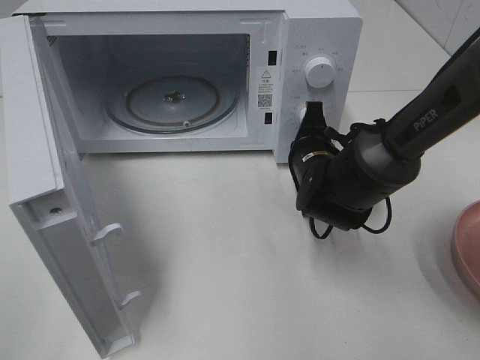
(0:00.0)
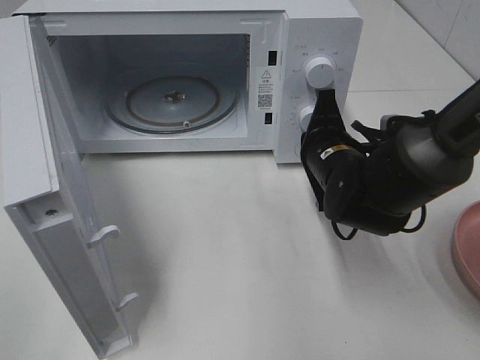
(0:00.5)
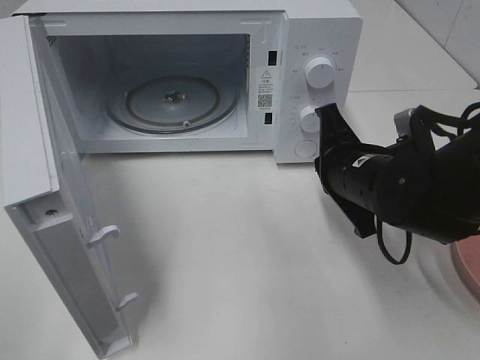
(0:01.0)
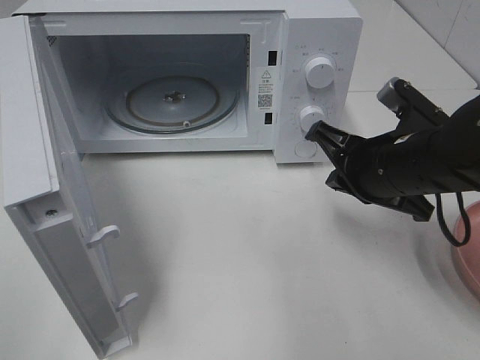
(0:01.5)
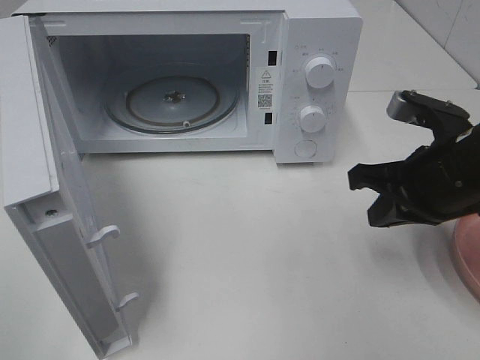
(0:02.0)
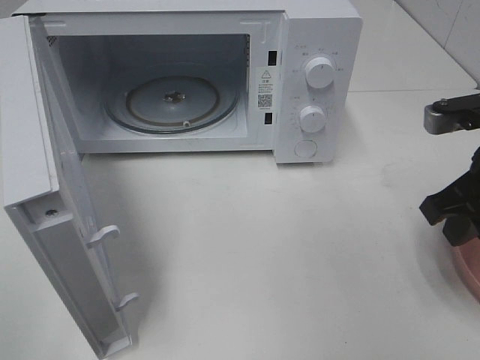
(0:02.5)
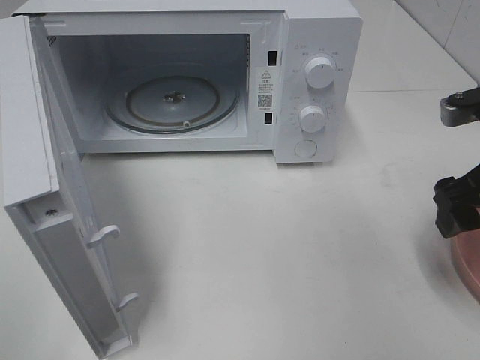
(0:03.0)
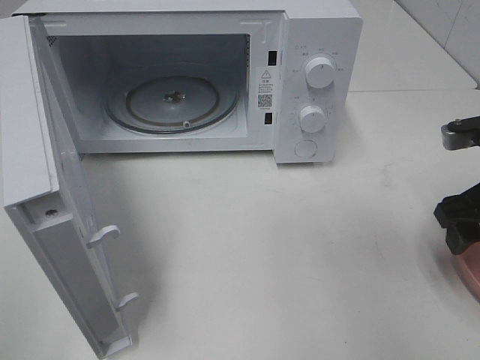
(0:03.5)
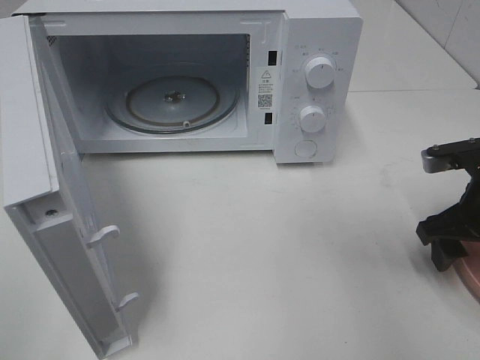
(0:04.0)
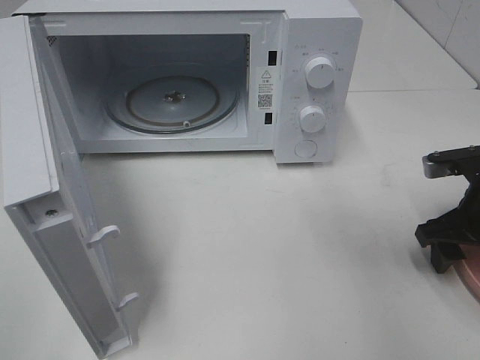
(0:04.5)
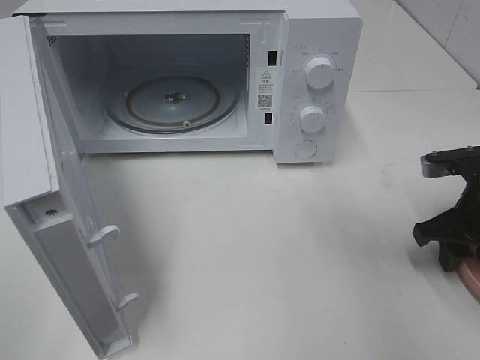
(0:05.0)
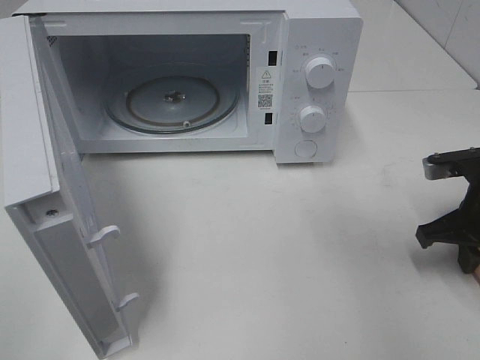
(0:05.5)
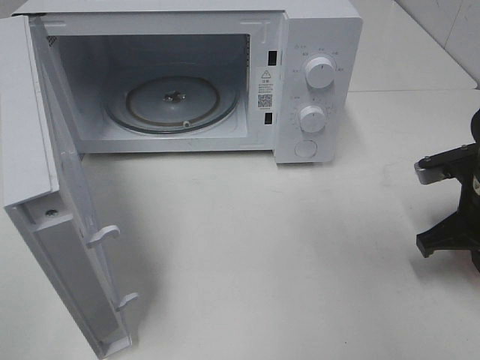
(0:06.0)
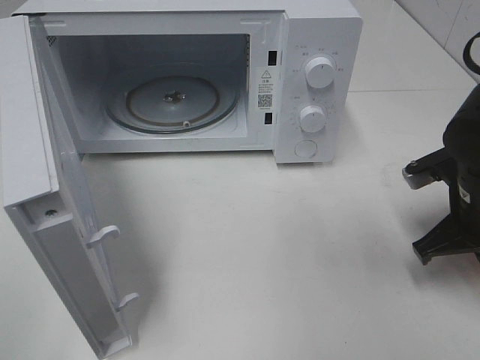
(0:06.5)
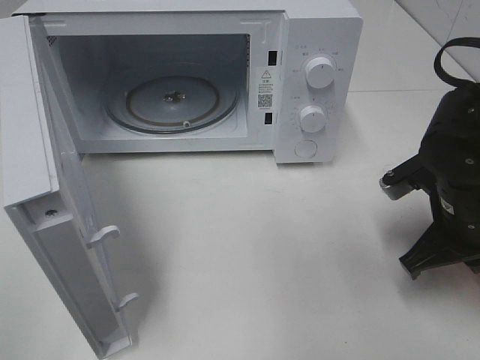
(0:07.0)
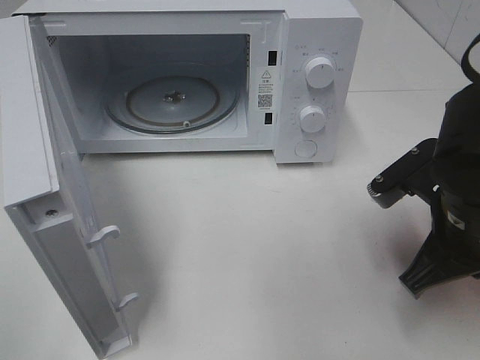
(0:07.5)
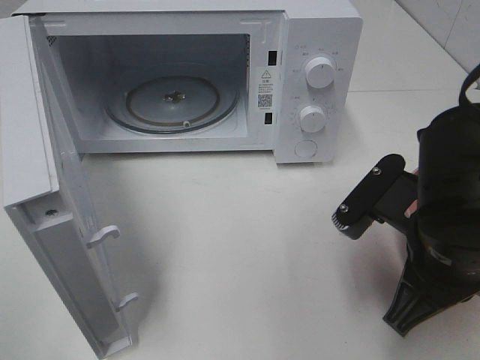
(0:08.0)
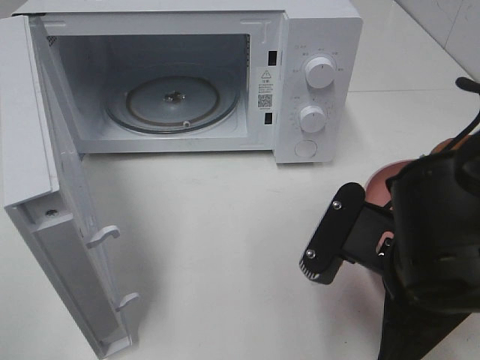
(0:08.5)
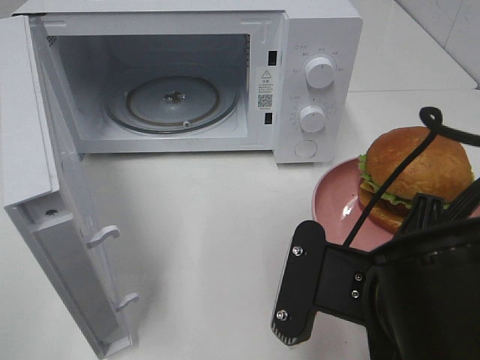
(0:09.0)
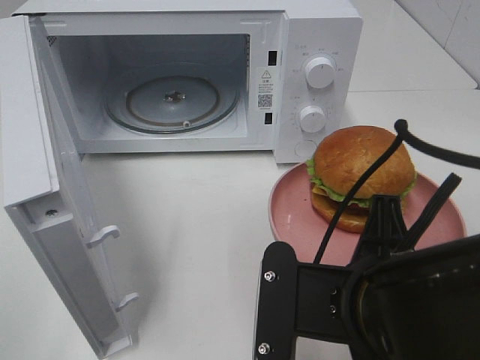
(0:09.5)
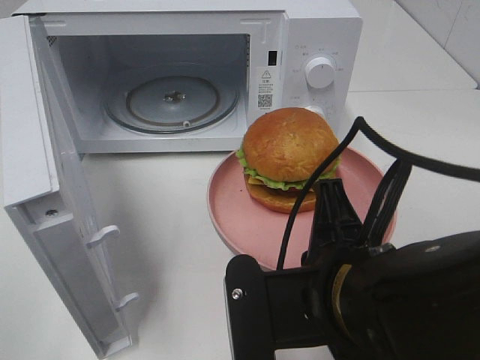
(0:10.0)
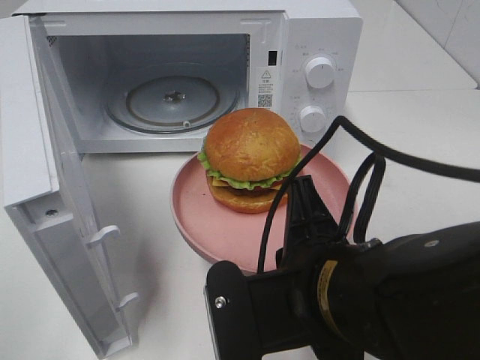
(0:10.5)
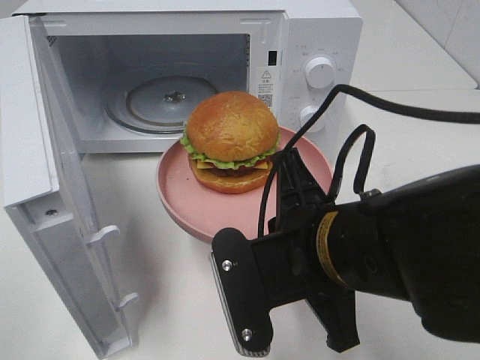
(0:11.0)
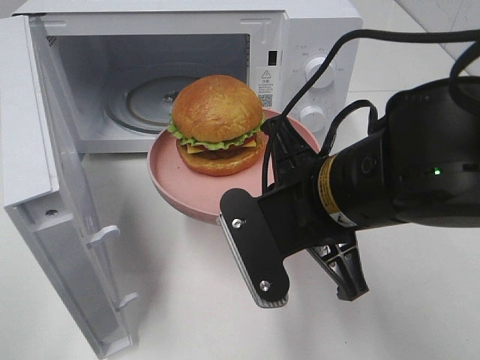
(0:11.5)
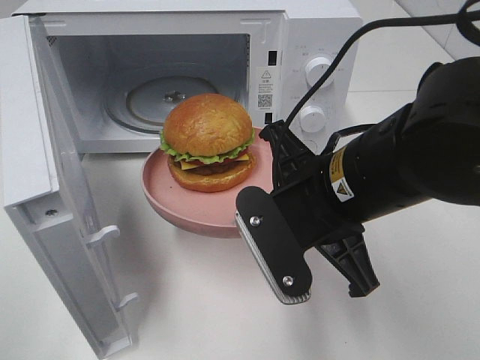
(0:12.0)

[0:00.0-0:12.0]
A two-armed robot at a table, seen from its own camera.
Task of the whole recording: Heat the burger.
Step, 0:00.5 to 0:05.5: Right hand: grab the plate with the hamburger.
0:00.0 to 0:02.0: The right gripper travels backward, upward and to the right by some 15 cm.
0:02.0 to 0:04.0: The right gripper shifts some 5 cm to the right, and opens.
0:04.0 to 0:06.0: The right gripper closes.
0:06.0 to 0:08.0: The right gripper goes roughly 15 cm to the left and backward.
0:08.0 to 0:10.0: The right gripper goes approximately 10 cm to the left and backward.
0:10.0 to 0:12.0: The right gripper heads forward, covering some 10 cm.

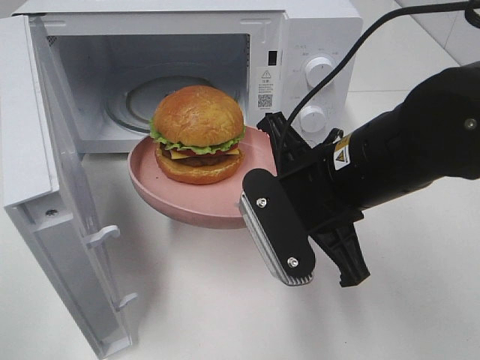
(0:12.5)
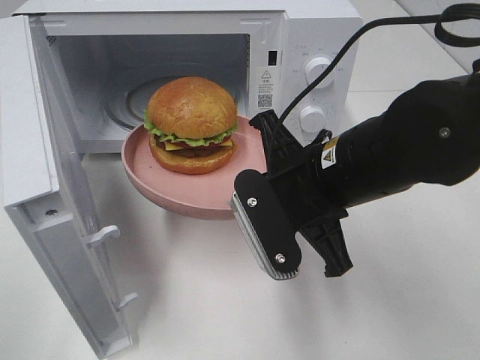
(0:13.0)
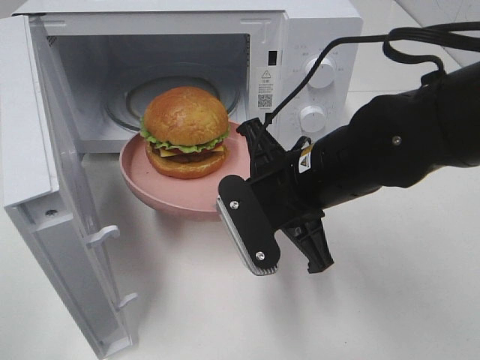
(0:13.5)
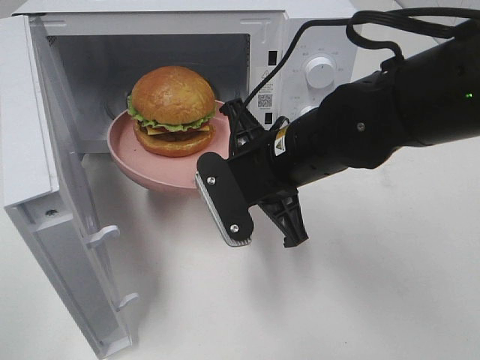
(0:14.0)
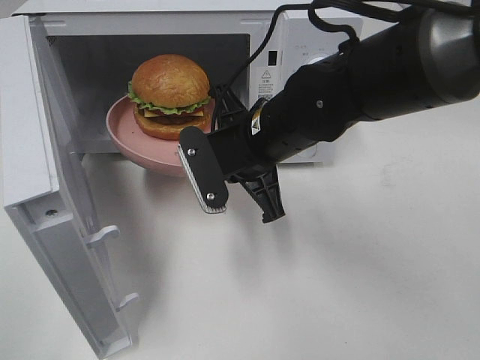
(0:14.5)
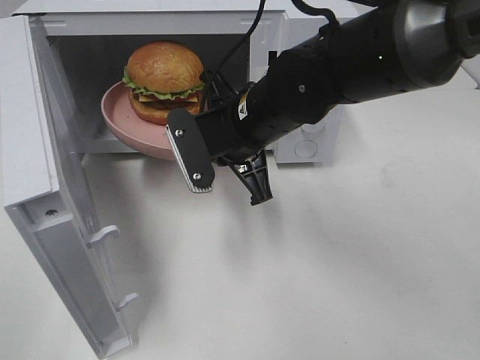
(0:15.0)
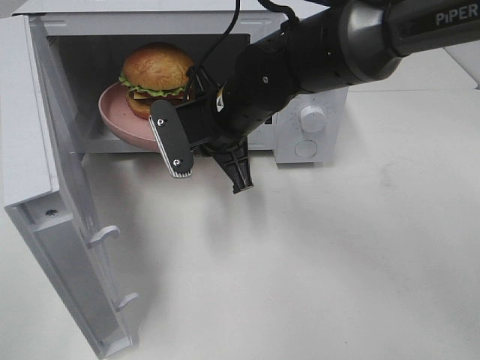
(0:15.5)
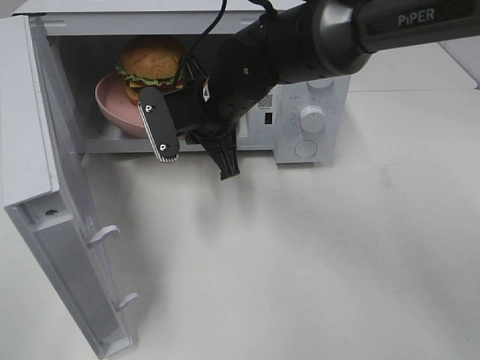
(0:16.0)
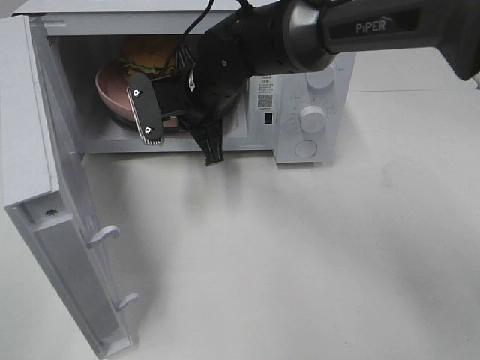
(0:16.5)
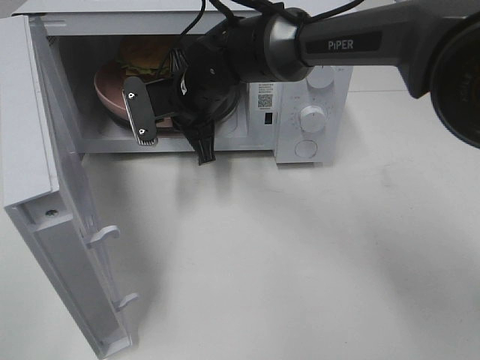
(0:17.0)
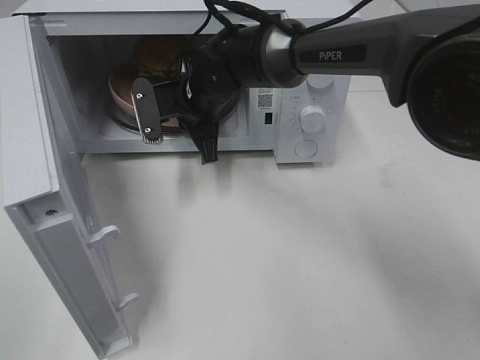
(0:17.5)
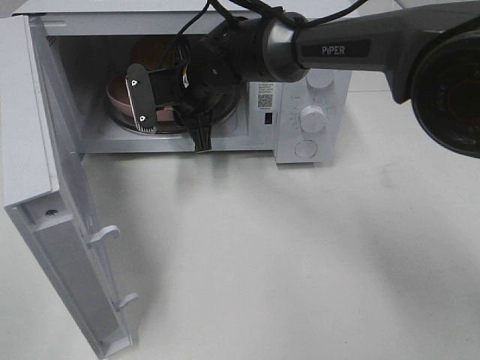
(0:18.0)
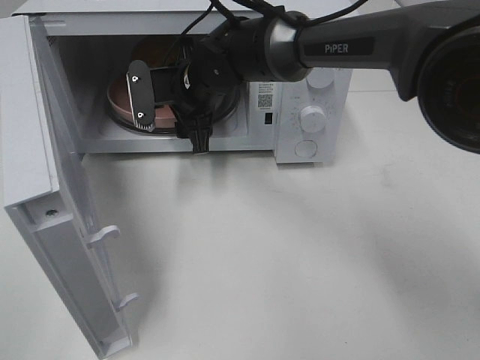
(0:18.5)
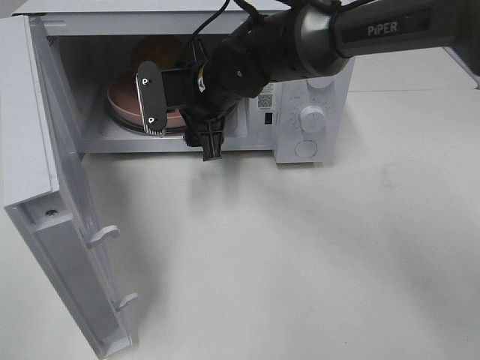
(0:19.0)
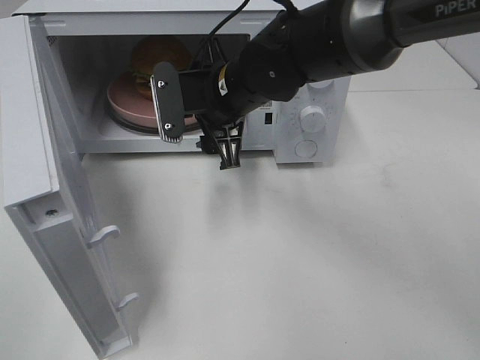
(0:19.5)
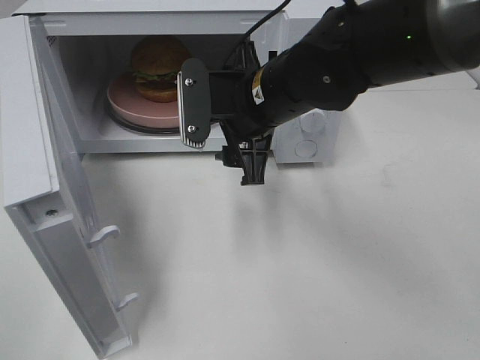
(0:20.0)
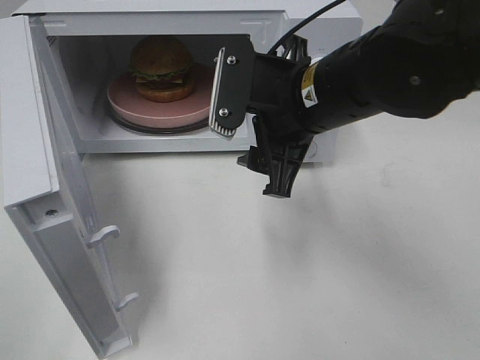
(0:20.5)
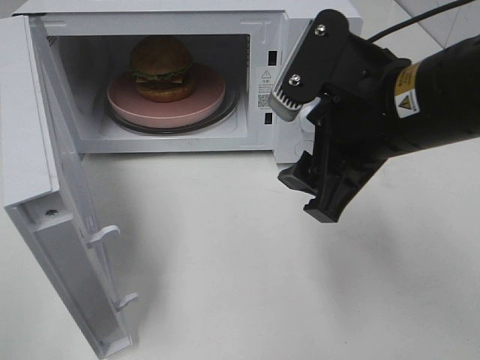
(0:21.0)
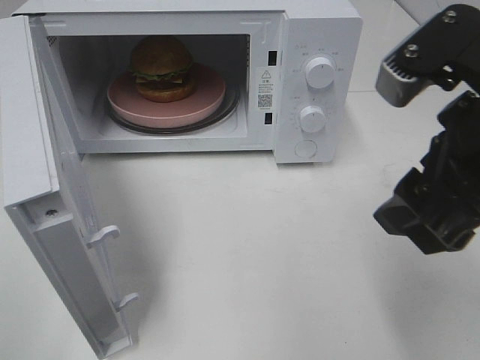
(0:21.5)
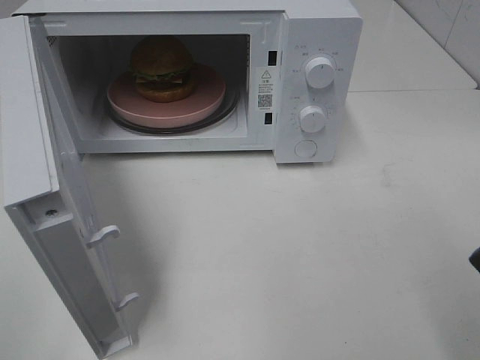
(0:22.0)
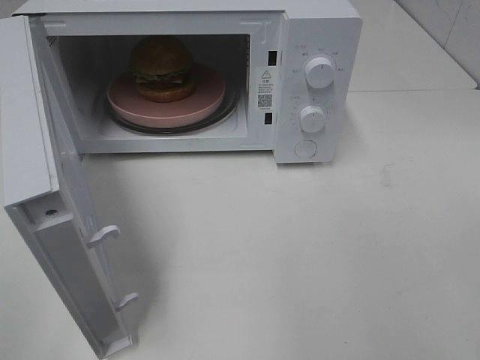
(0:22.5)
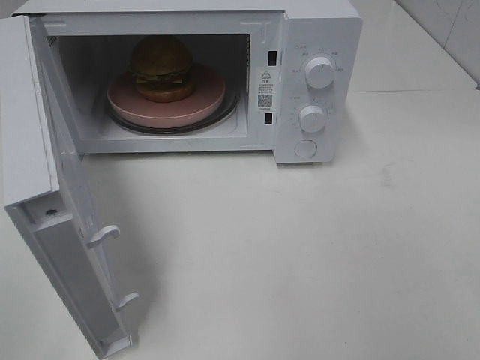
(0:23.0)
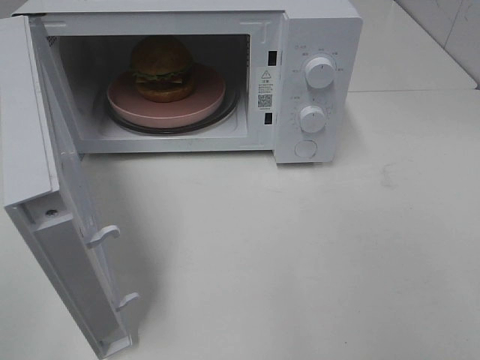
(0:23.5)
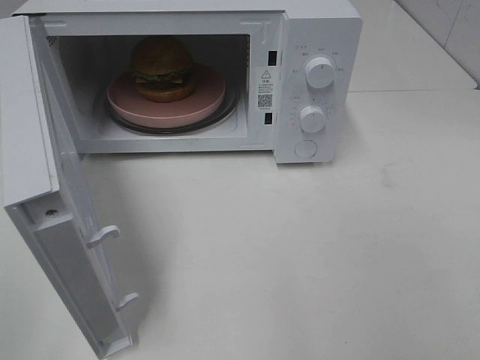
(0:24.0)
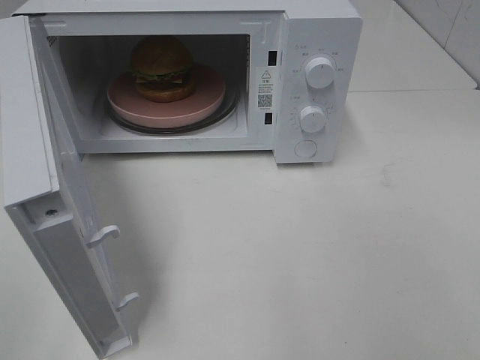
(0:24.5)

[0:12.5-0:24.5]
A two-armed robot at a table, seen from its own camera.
Task of the whole recording: Heat the burger.
Step, 0:12.5 to 0:18.0: Right hand: place the plate in the microwave.
0:12.5 to 0:14.5: The right gripper is displaced forward and to the left by some 10 cm.
0:14.5 to 0:16.5: The right gripper moves forward and to the left, roughly 10 cm.
0:16.5 to 0:18.5: The right gripper opens.
0:18.5 to 0:20.5: The right gripper travels backward, to the right and upward by roughly 20 cm.
0:20.5 to 0:22.5: The right gripper heads backward, to the right and upward, covering approximately 30 cm.

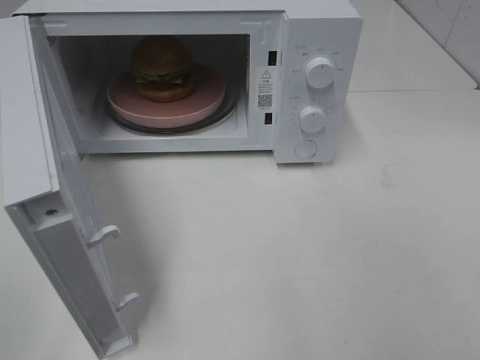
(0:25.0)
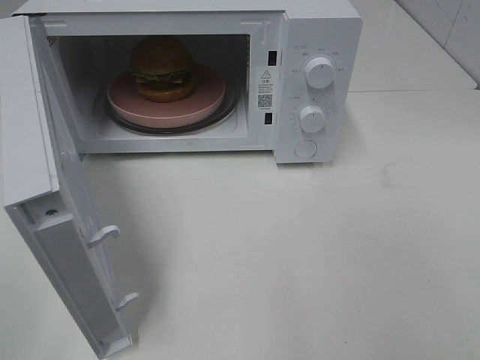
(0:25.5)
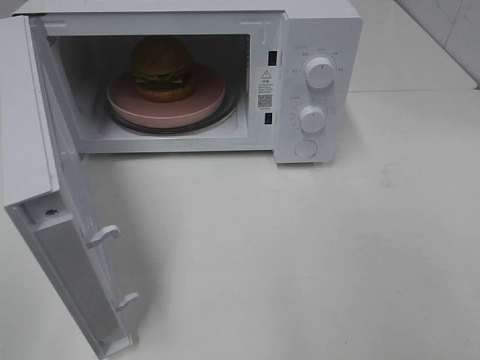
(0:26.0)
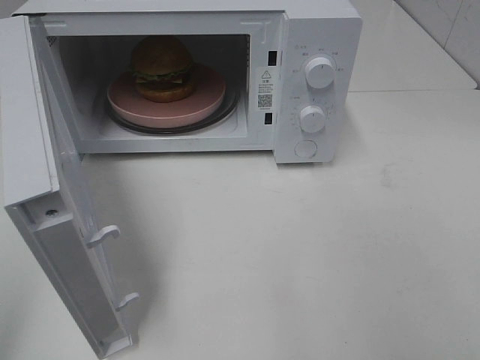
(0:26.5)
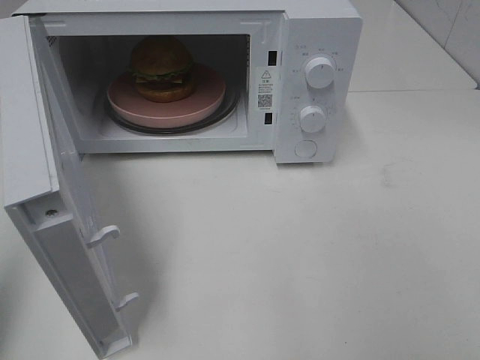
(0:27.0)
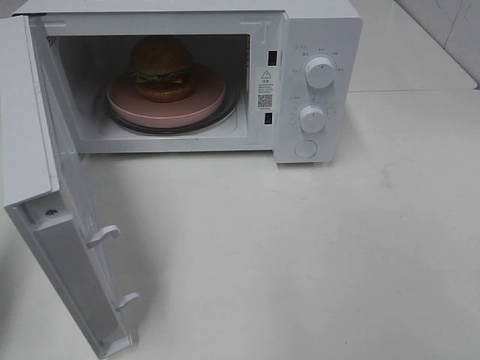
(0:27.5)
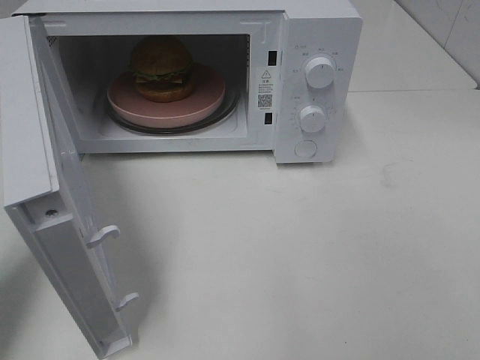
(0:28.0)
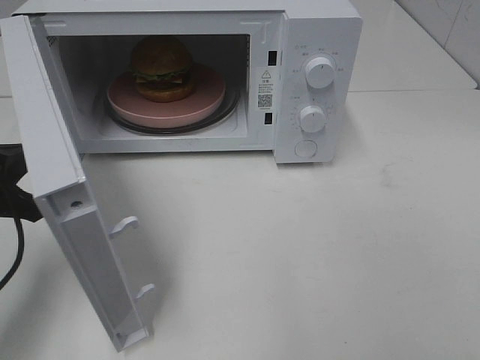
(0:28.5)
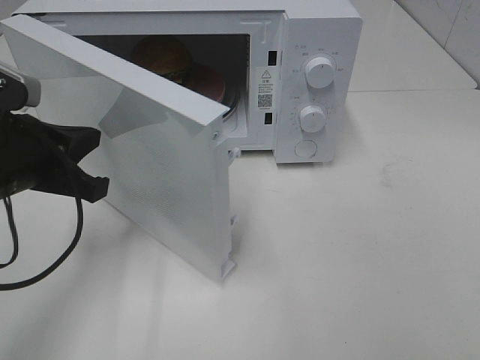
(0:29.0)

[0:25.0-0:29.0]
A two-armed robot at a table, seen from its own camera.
Task of the whole recording: Heat the burger.
0:25.0 to 0:27.0: The left gripper moves forward, approximately 10 cm, and closes.
0:27.0 to 0:29.0: The left gripper goes approximately 20 cm forward, to the right and downward.
